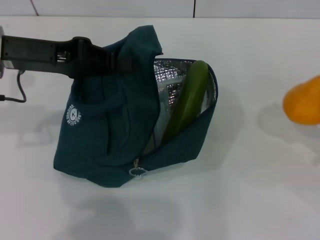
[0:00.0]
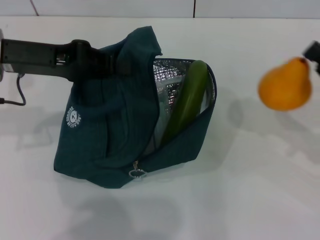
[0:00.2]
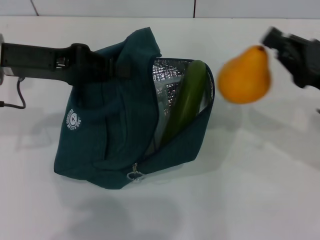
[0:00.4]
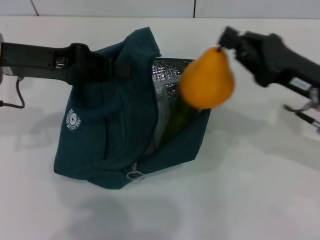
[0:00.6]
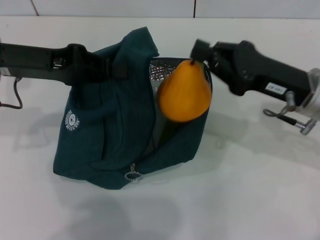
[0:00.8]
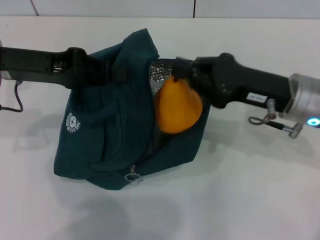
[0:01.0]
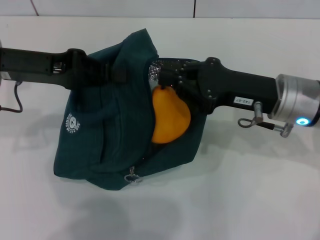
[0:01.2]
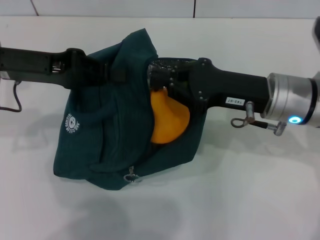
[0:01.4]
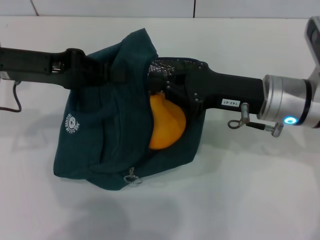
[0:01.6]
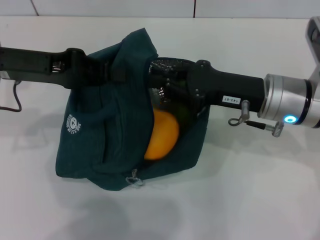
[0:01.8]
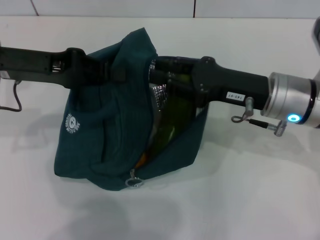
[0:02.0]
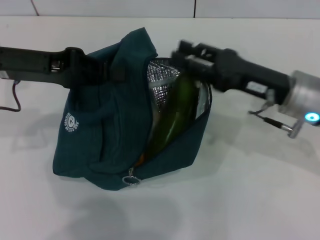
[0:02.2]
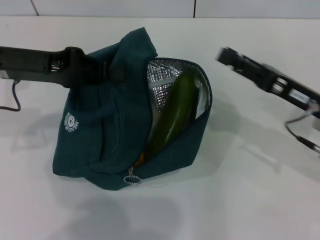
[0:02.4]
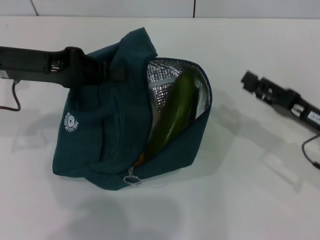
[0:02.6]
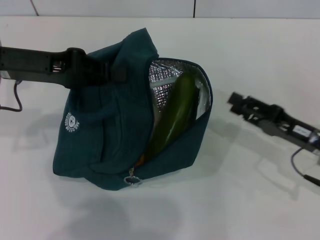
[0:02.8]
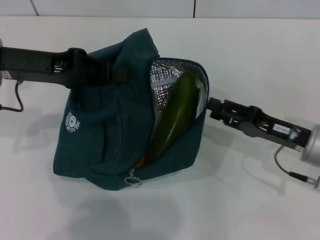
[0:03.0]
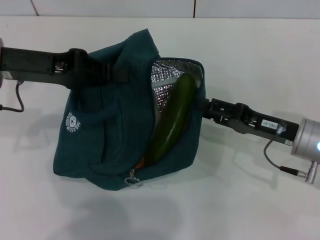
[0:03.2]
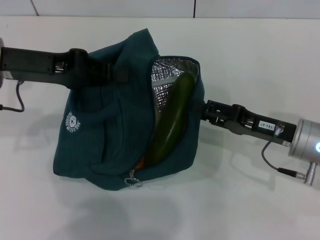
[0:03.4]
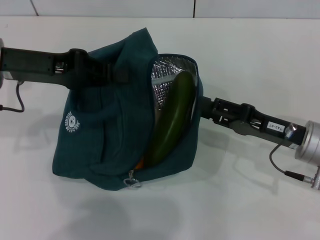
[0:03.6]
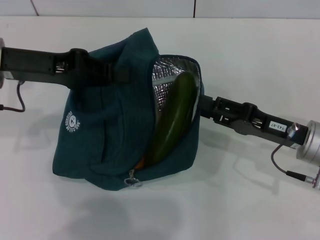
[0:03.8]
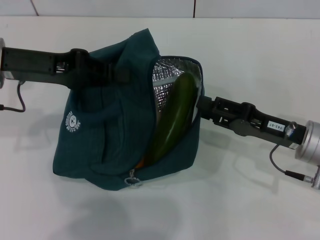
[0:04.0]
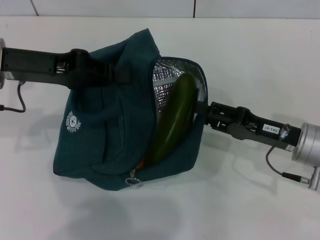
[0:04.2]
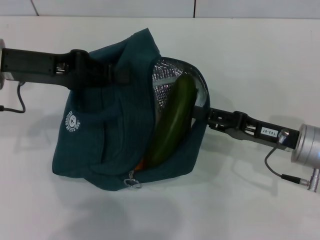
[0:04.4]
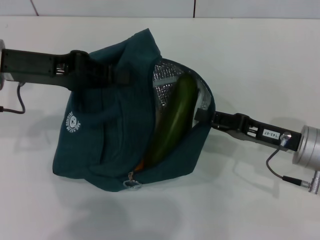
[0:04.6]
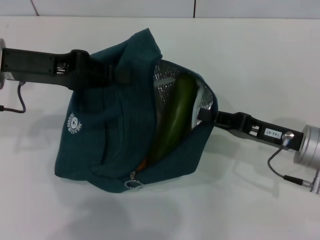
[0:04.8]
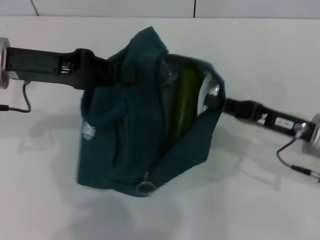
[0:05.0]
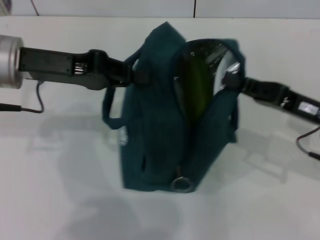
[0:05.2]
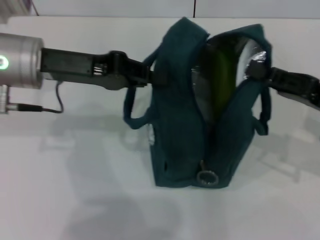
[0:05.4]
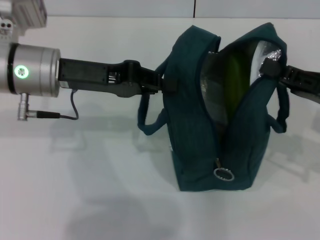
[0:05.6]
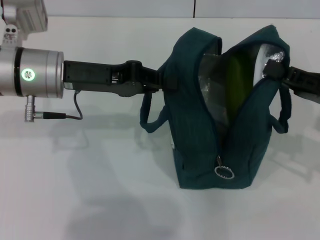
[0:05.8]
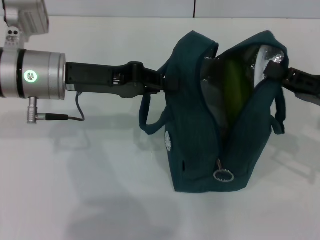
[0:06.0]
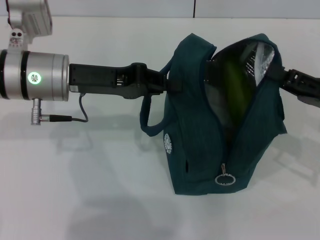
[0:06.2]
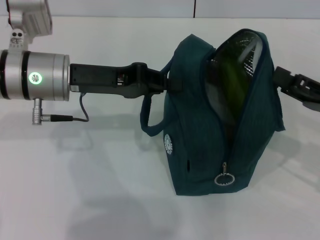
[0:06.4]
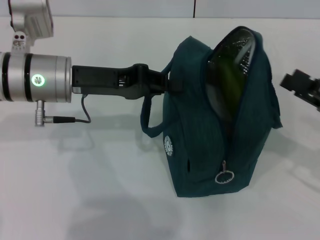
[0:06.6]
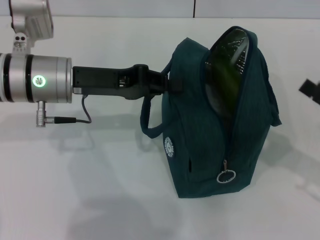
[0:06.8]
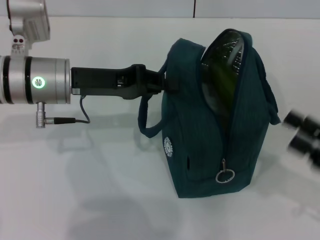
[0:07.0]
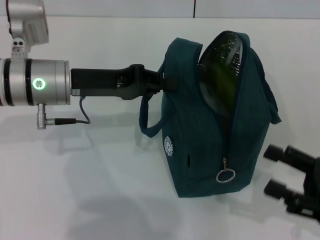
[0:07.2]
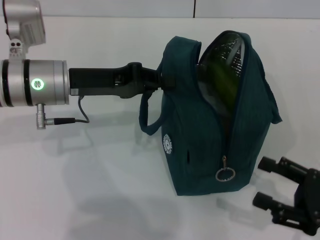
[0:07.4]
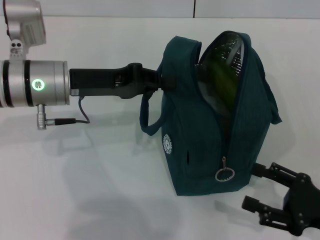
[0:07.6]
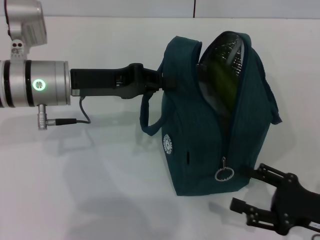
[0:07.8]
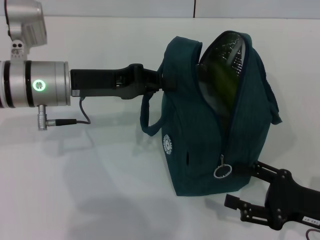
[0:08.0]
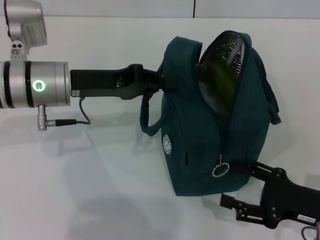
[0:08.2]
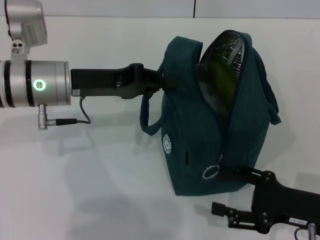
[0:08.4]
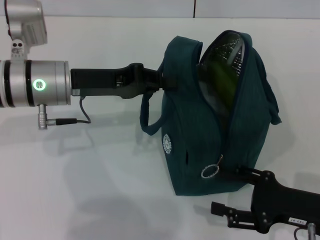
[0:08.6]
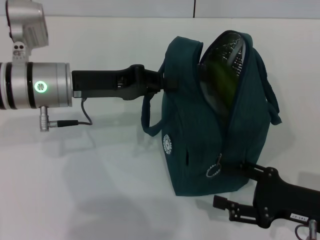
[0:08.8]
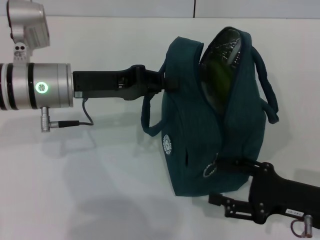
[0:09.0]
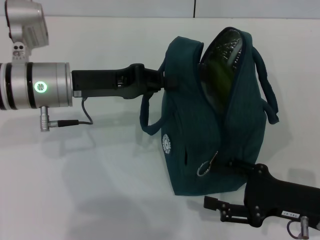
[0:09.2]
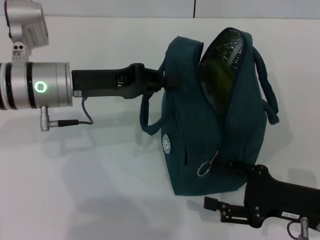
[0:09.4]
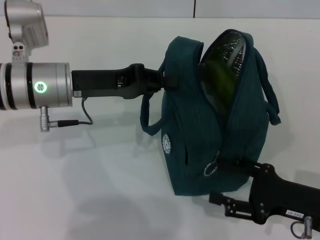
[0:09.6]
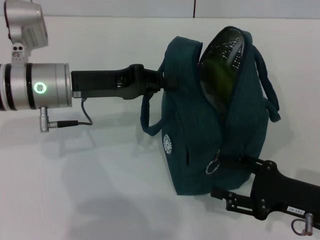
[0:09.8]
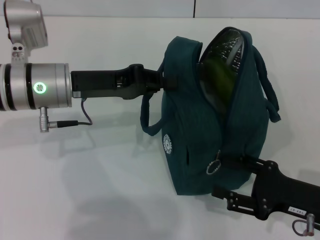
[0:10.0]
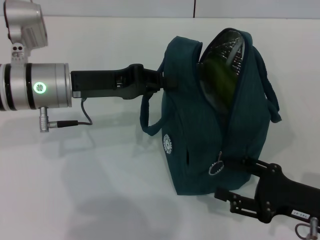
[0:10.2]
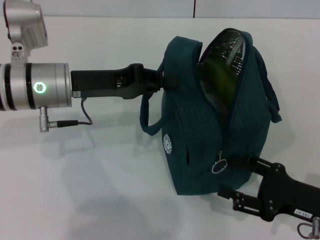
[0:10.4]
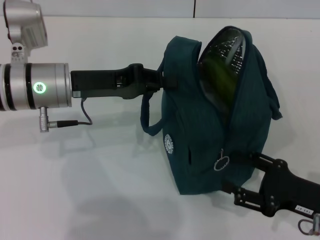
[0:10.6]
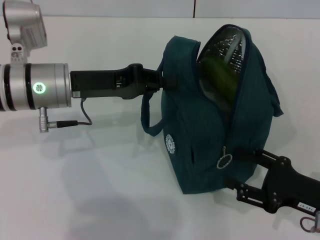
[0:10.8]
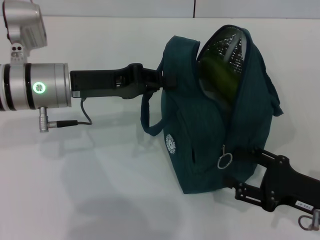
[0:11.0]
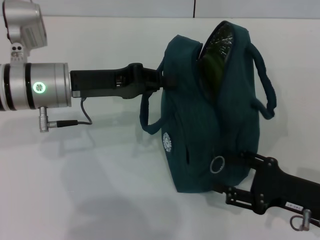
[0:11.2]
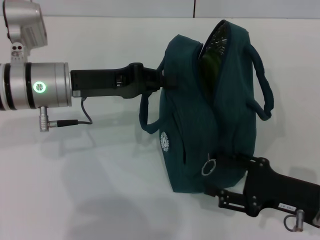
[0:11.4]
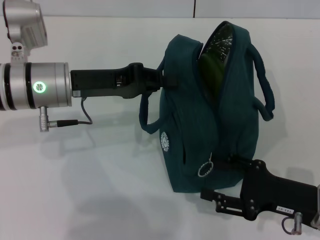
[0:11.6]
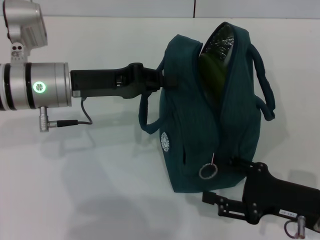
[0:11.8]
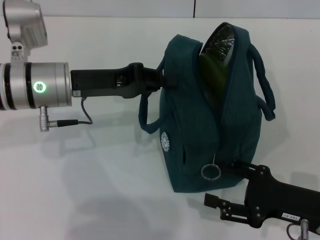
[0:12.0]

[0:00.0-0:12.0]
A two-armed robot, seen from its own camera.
Step, 0:02.2 to 0:06.6: Hold the lunch bag with your right hand.
0:00.0 to 0:01.6: The right gripper is displaced to the left by about 20 cm.
0:01.6 to 0:03.0: The right gripper moves to the right and downward, some 10 cm, and opens.
0:03.0 to 0:04.4: There are only small adjustments of the grippers.
0:04.4 to 0:06.0: Both grippers travel together to the right, about 5 cm. The right gripper closes its fingers.
0:06.0 to 0:07.6: The right gripper heads backward and downward, covering some 15 cm, and opens up.
0:07.6 to 0:12.0: The grippers stay close to where they were, moving slightly.

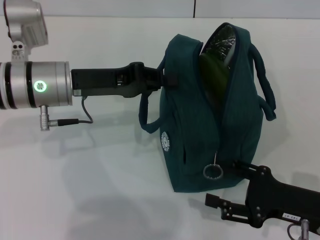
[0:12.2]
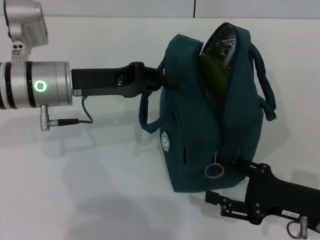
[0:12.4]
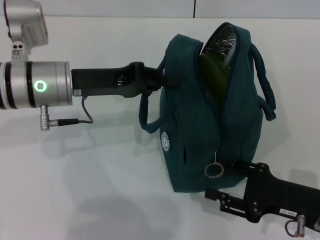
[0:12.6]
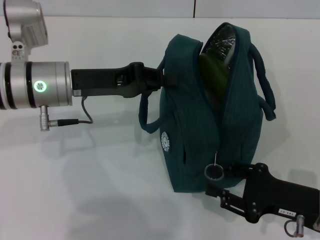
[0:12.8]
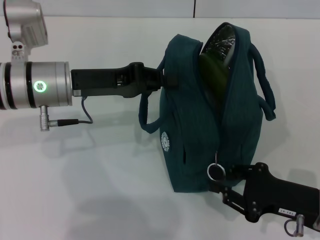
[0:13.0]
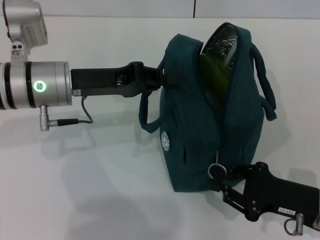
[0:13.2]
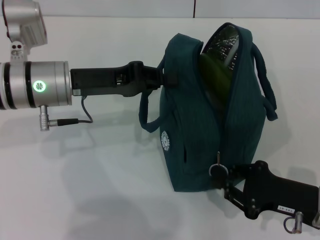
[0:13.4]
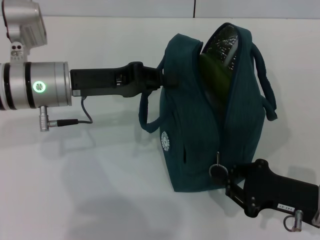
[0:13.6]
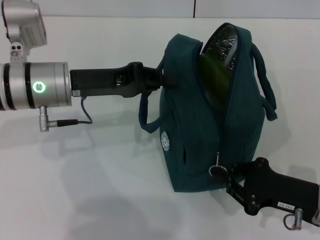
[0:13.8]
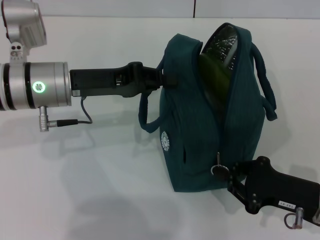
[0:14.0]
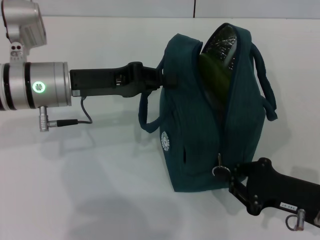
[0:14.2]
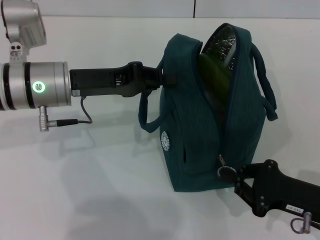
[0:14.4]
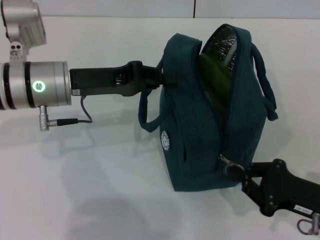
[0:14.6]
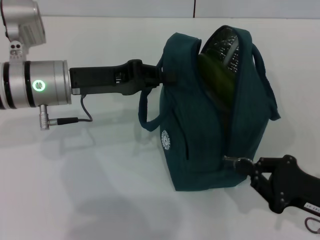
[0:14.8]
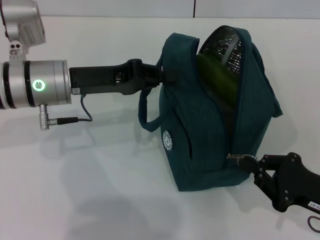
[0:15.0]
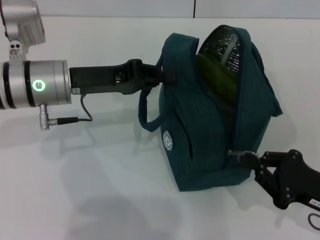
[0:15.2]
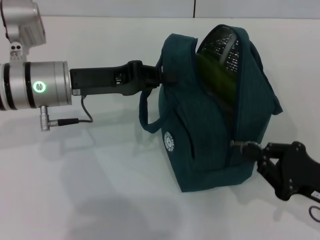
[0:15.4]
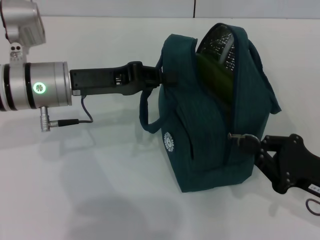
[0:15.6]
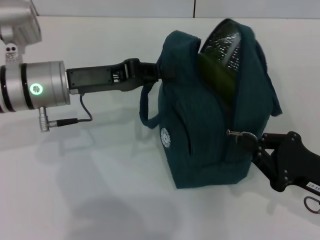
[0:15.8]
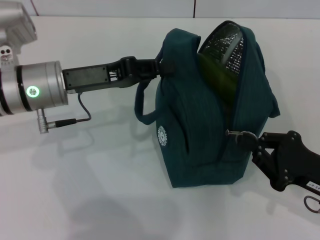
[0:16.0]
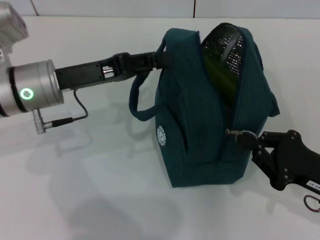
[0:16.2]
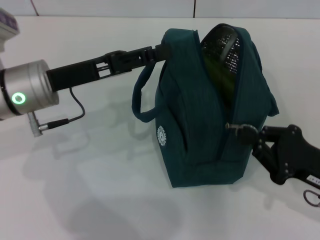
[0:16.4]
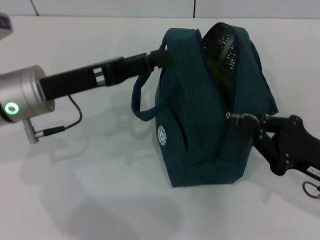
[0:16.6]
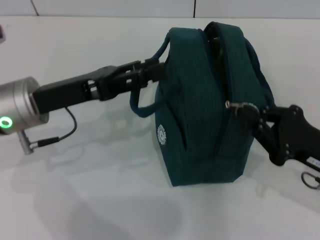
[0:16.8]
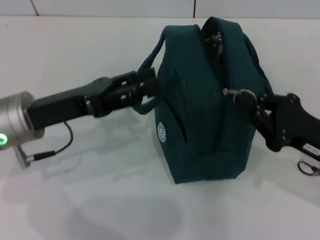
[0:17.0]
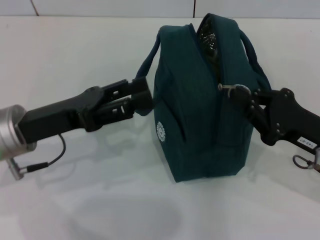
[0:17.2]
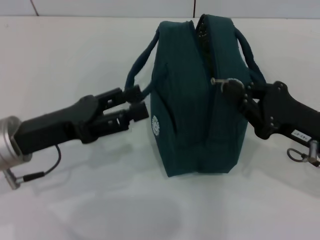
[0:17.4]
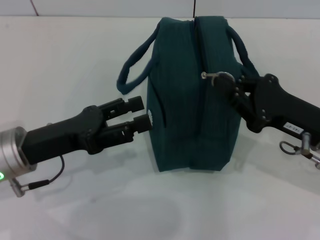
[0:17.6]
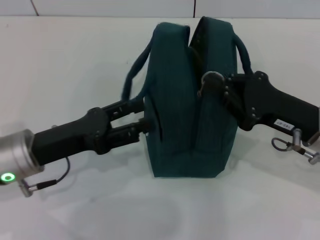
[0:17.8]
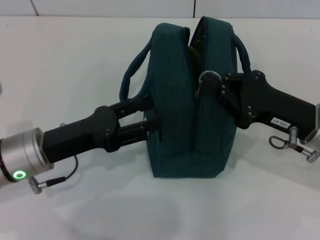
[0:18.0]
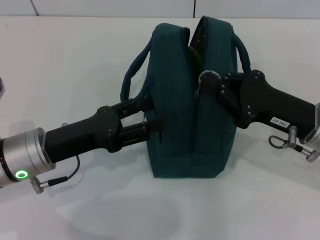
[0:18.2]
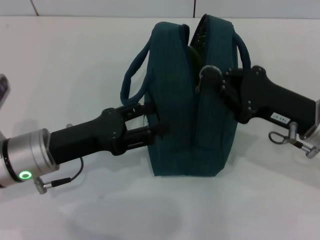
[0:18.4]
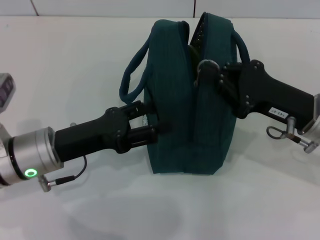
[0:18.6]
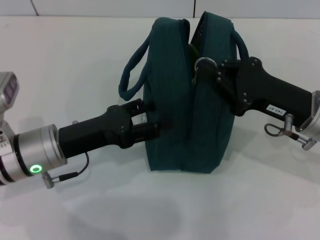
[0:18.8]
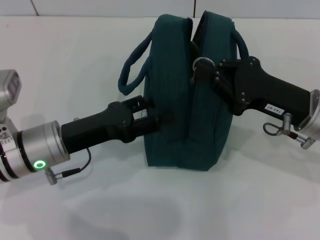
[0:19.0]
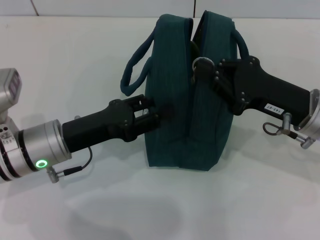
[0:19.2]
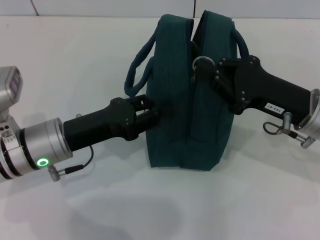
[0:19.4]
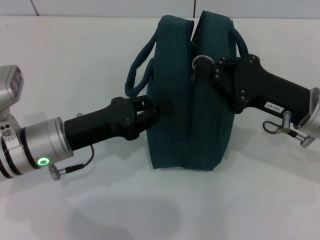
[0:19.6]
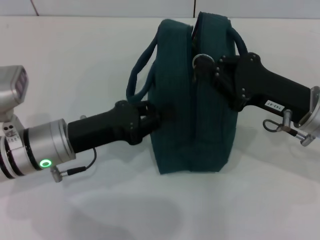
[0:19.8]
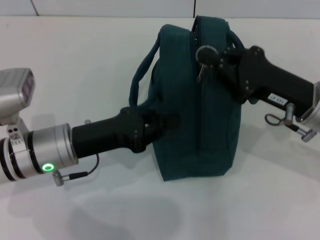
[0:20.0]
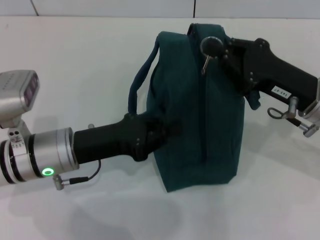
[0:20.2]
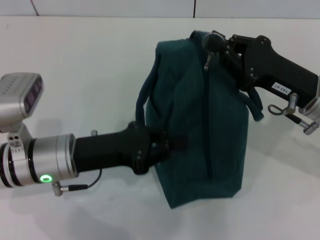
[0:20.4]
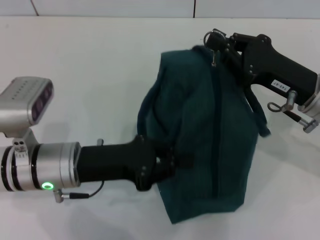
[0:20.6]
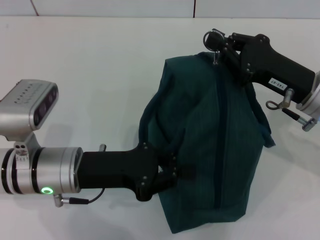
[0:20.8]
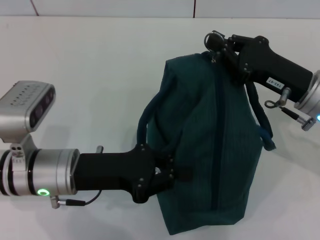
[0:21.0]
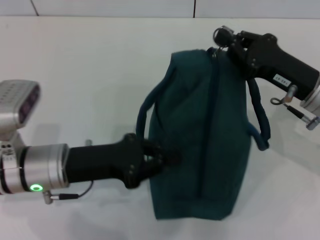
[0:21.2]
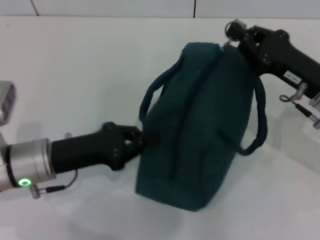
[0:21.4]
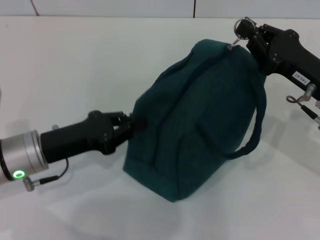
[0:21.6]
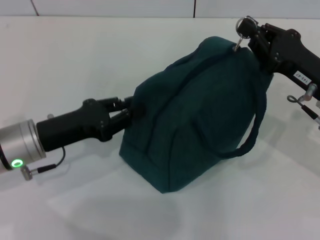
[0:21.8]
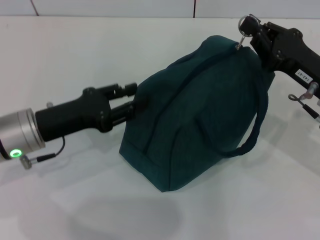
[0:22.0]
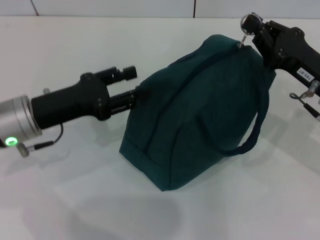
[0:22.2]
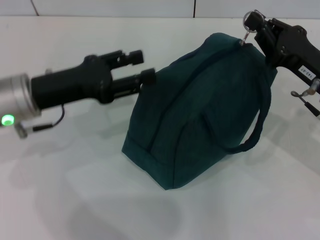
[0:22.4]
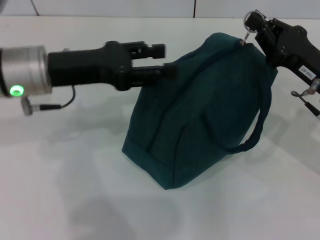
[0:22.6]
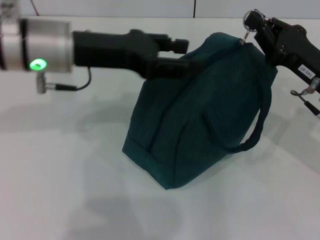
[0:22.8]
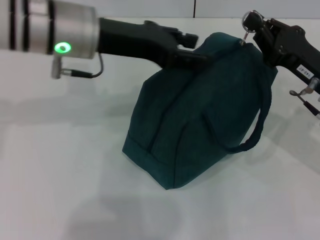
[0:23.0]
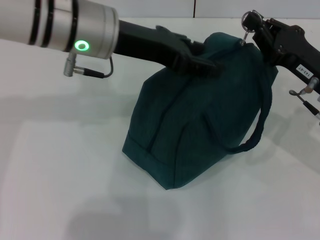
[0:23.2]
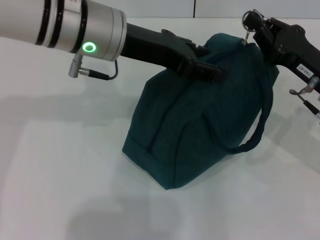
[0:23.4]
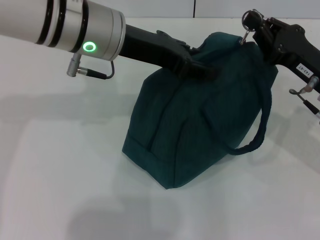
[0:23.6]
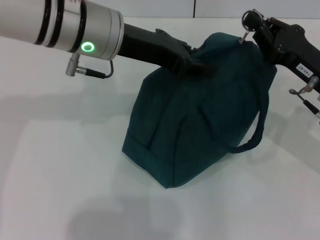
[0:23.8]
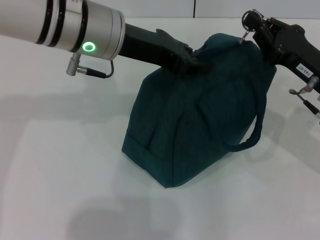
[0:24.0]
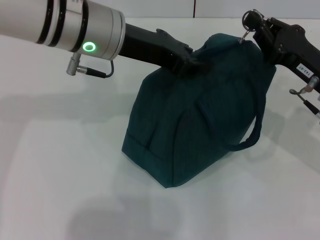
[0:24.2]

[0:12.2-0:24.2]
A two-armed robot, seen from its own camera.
Step, 0:12.2 to 0:16.6: Hold the lunch bag with your left hand.
0:12.2 to 0:13.8: The right gripper closes up.
0:13.8 to 0:15.2: There are only small adjustments of the grippers.
0:15.2 to 0:16.6: The left gripper opens its fingers.
0:16.6 to 0:18.2: The right gripper is displaced forward by about 5 cm. Meanwhile the left gripper shifts some 10 cm downward and backward.
0:18.2 to 0:19.8: The left gripper closes its fingers.
0:21.2 to 0:22.6: The left gripper travels upward and forward by approximately 10 cm, and opens.
0:22.6 to 0:24.2: The left gripper moves to the right and upward, approximately 10 cm, and closes.
